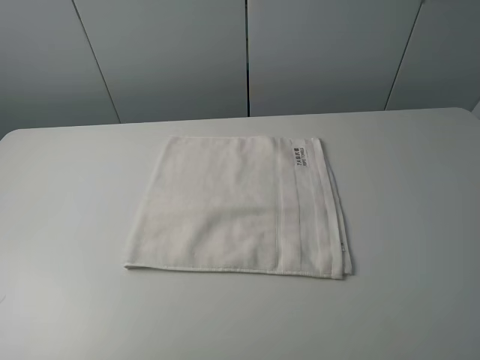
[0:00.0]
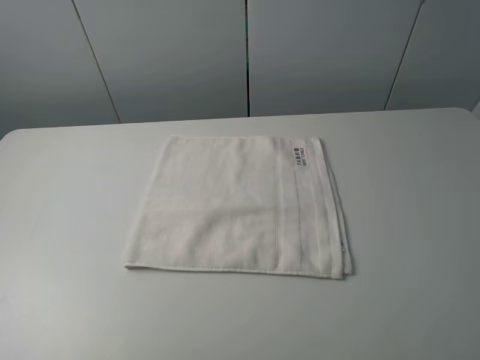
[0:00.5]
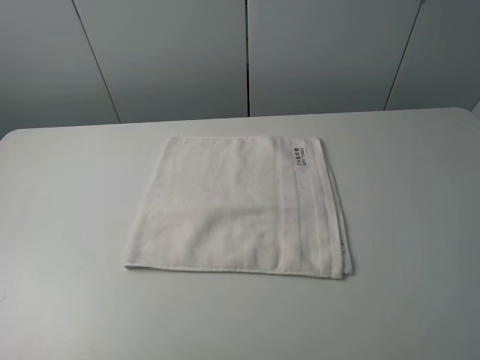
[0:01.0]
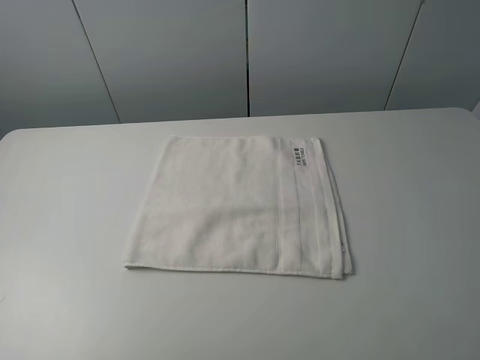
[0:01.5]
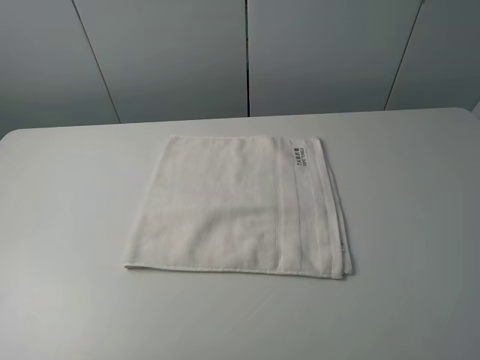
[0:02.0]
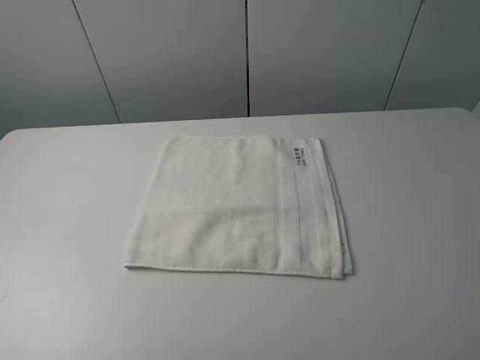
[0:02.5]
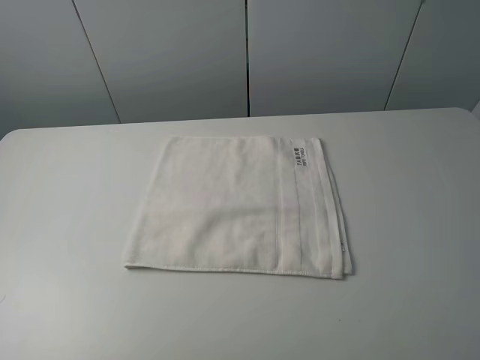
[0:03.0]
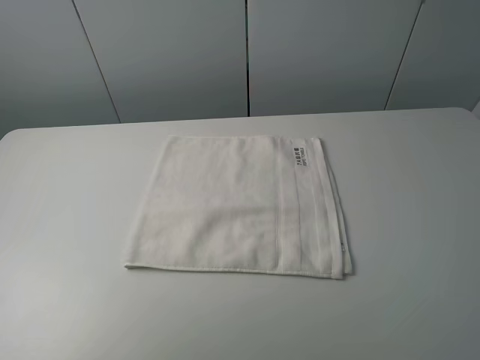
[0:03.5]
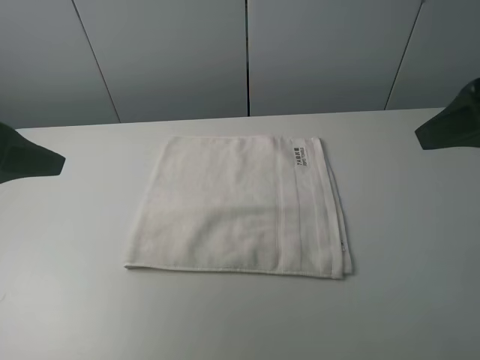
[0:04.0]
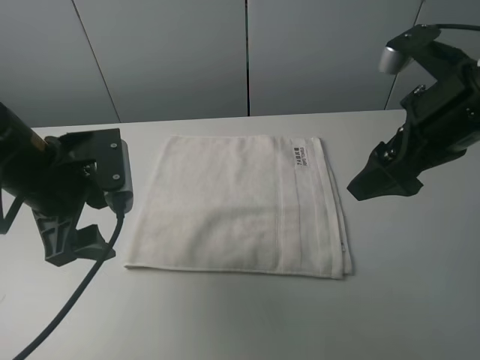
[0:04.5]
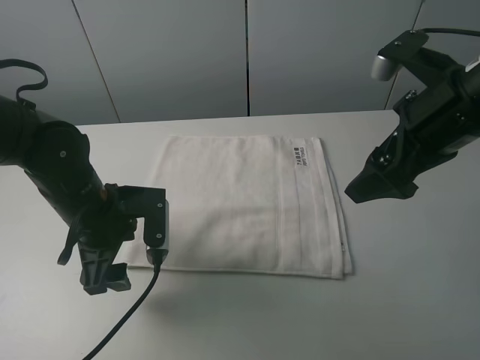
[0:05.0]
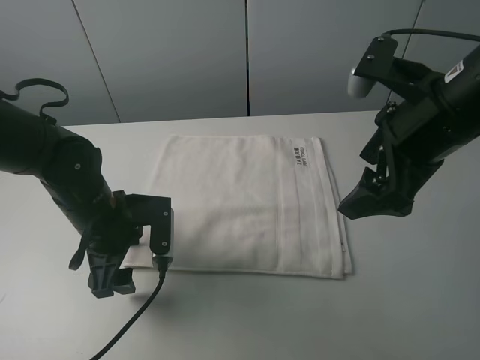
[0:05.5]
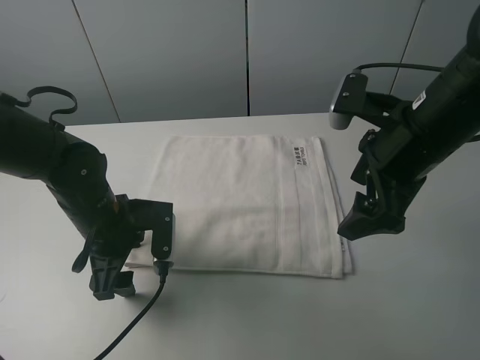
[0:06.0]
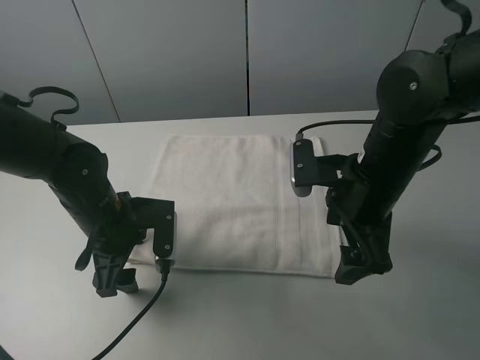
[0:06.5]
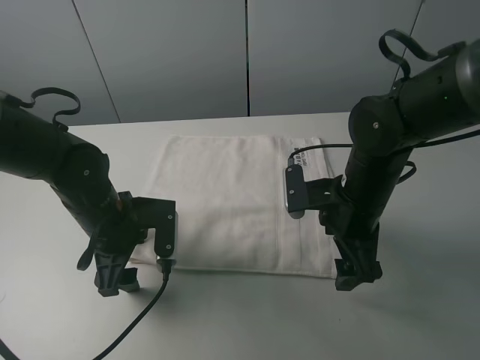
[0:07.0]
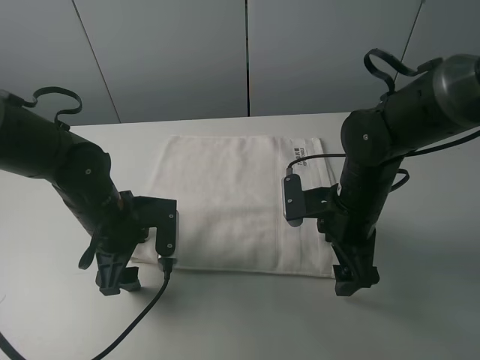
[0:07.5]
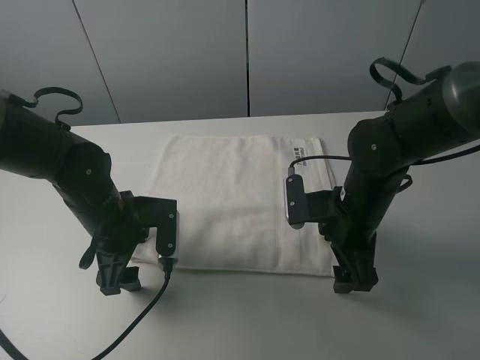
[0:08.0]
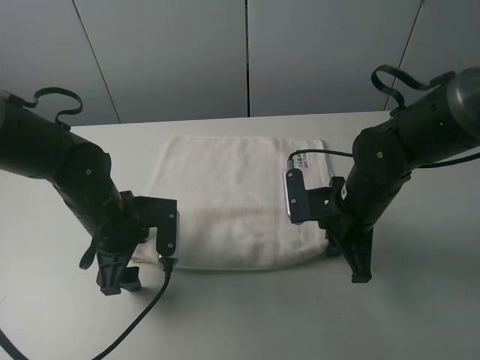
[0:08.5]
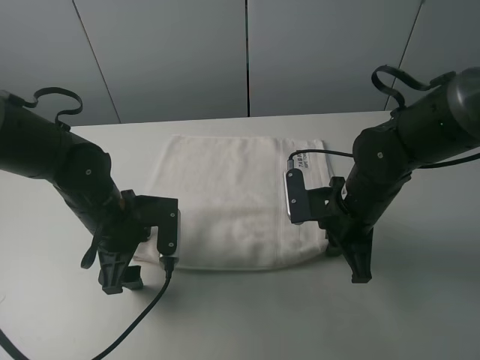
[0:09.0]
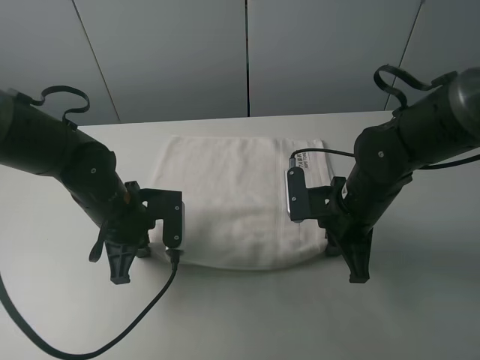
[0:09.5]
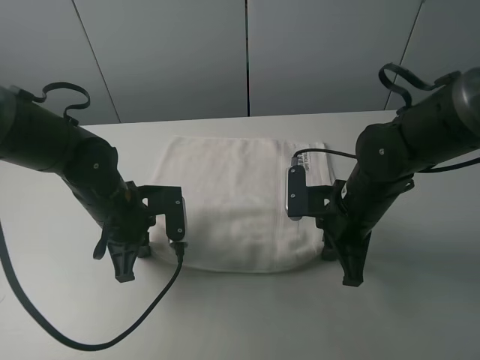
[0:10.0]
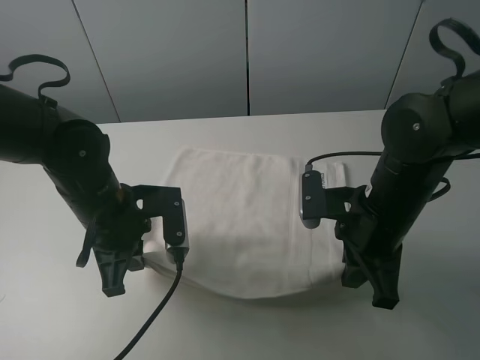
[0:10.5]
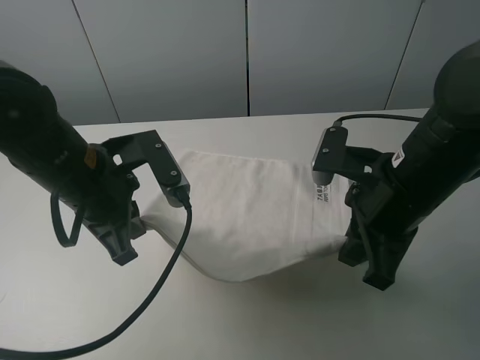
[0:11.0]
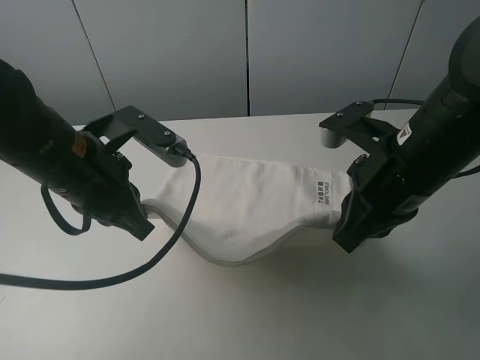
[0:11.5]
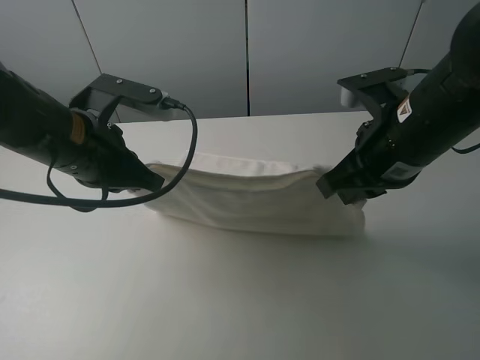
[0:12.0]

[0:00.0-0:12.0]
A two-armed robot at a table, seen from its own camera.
Task of the whole recording: fold the towels on the table.
Step, 0:00.0 to 0:08.0: Grasp the white towel with the right gripper.
Step, 0:08.5 to 0:09.5: Grasp the white towel with the left gripper.
0:00.0 to 0:02.0: Neither gripper changes place.
0:02.0 to 0:04.0: The two grippers go approximately 20 cm forward.
0:04.0 to 0:06.0: The right gripper is displaced downward, to the left and forward by about 15 cm. The left gripper heads downward and to the right, covering roughly 20 cm.
0:06.0 to 0:08.0: The right gripper travels downward by approximately 15 cm.
0:08.0 to 0:10.0: The right gripper closes. Meanwhile the left gripper closes its fingers.
0:10.0 to 0:12.0: Both grippers travel together upward, about 15 cm.

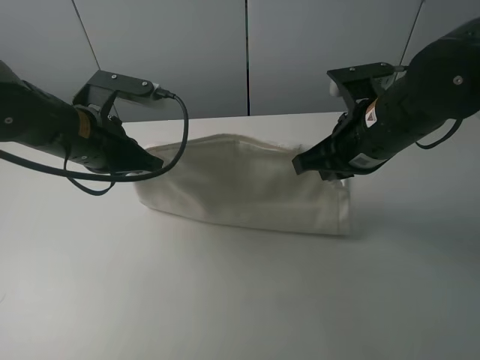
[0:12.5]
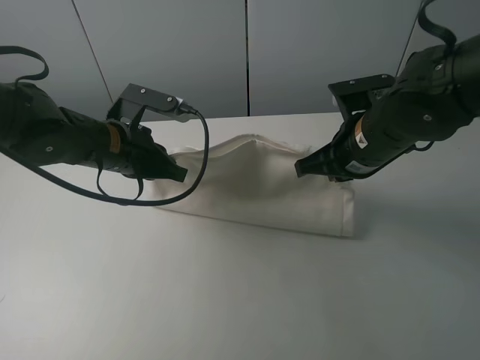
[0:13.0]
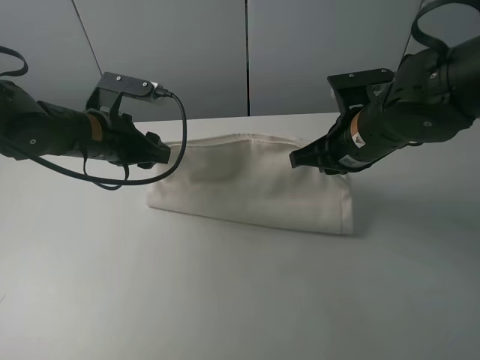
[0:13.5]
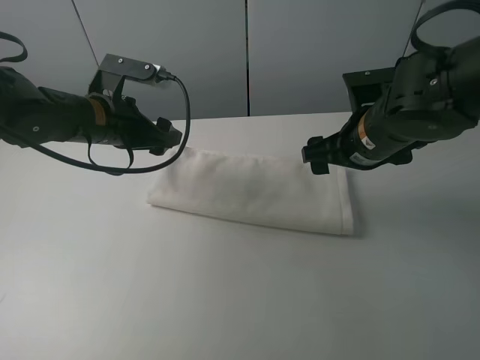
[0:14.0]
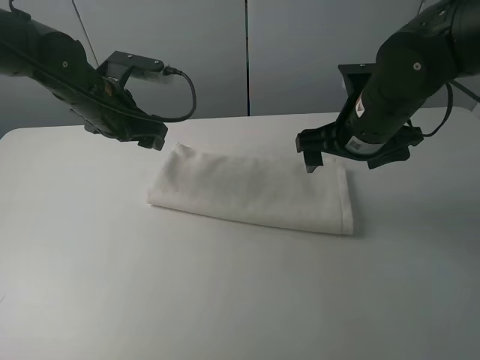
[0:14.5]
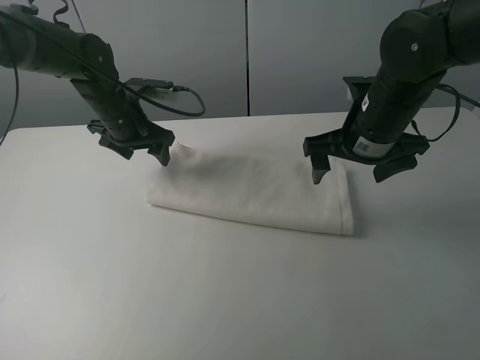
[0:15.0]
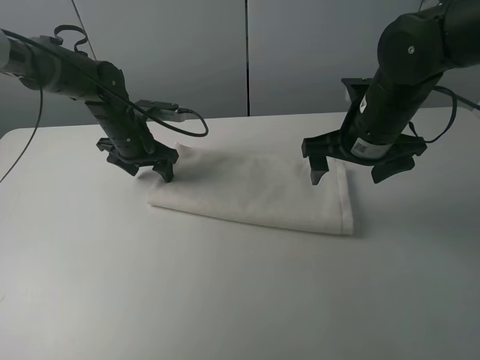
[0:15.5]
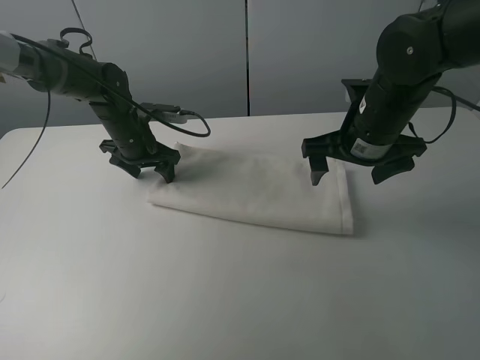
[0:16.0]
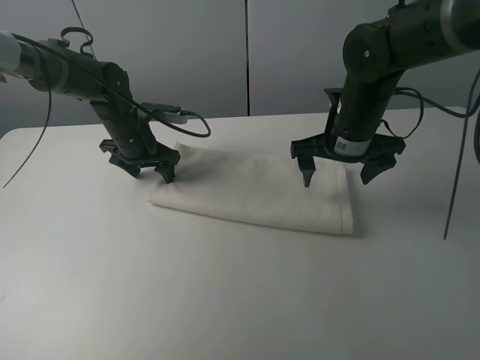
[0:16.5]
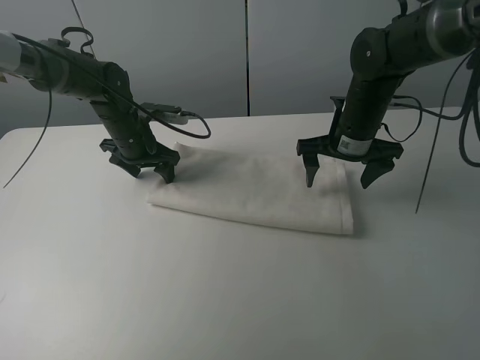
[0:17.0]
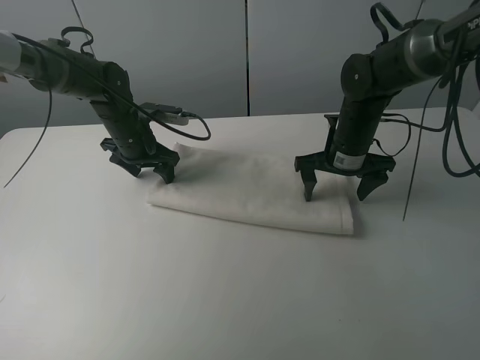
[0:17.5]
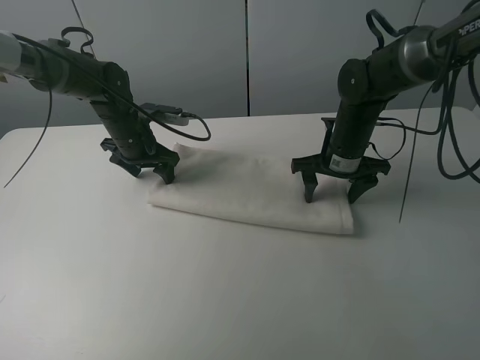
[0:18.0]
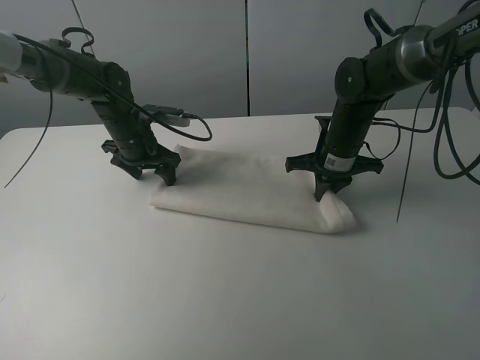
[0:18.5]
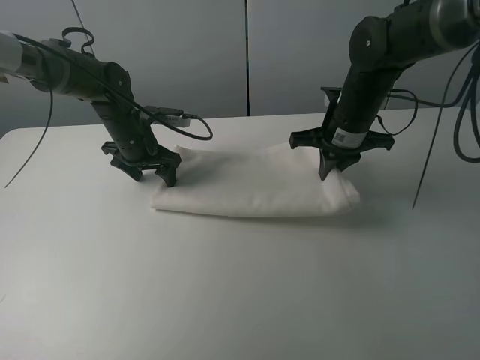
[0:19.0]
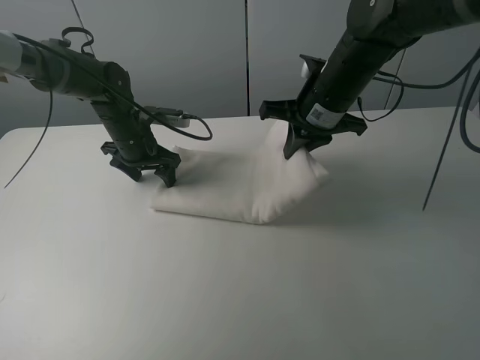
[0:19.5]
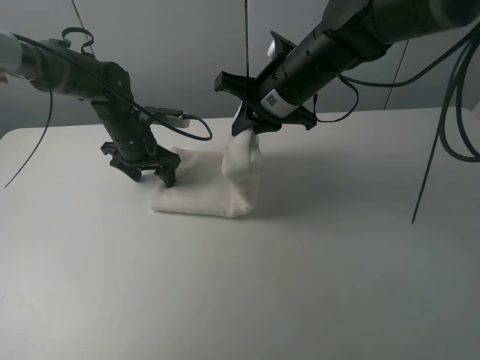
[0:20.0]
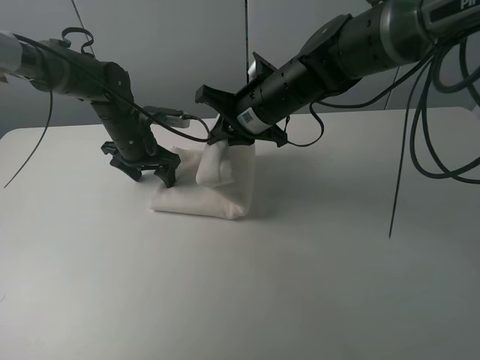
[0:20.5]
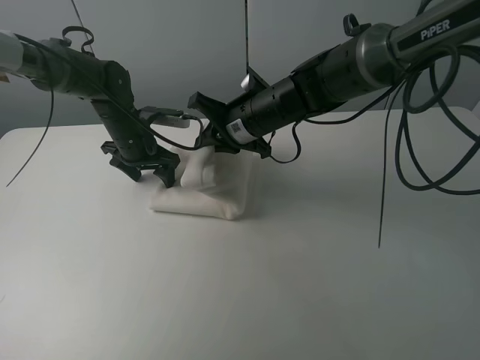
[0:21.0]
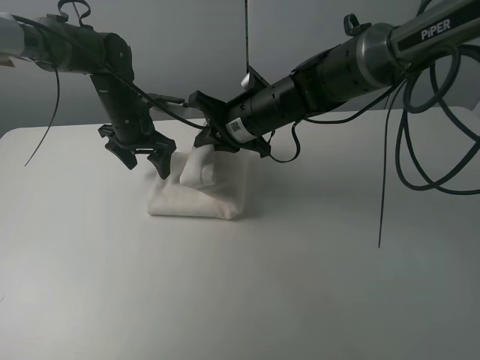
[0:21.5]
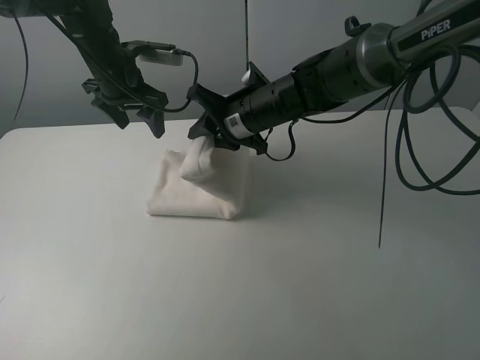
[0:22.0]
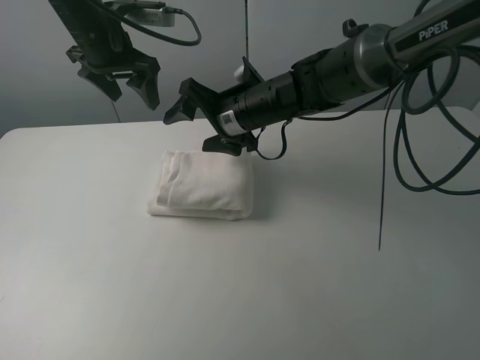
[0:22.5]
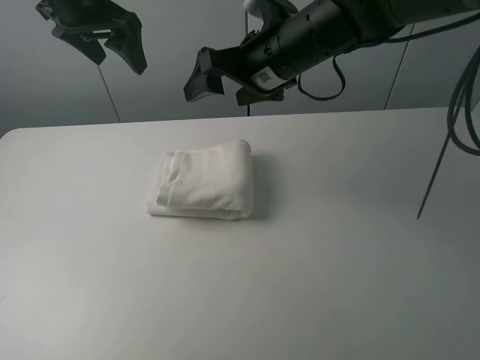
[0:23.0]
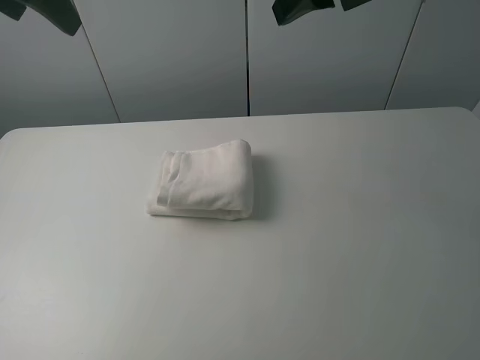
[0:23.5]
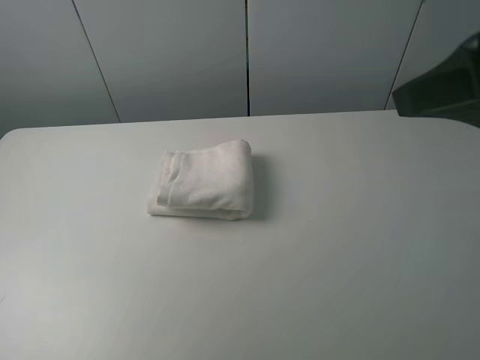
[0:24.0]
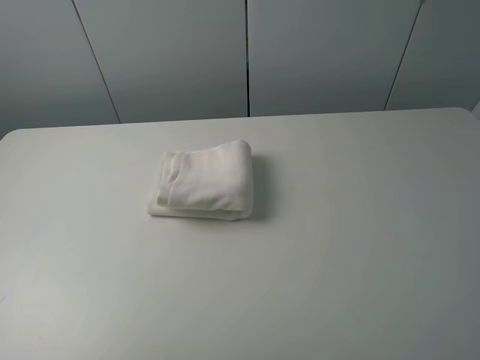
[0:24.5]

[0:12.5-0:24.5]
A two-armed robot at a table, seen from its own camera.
Task of the whole recording: fold the towels on the table.
Step, 0:14.0 to 0:15.5: Press on the white towel with the left gripper.
Step, 0:16.0 to 0:22.5: Fold the white towel from right to left with right gripper.
0:12.5 to 0:14.5: The right gripper opens its fingers. Meanwhile the left gripper is displaced forward by some 10 cm, and opens up.
0:14.5 to 0:16.5: The right gripper moves approximately 5 cm. Meanwhile the left gripper is displaced downward and forward by roughly 10 cm.
0:16.5 to 0:18.5: The right gripper travels downward by approximately 5 cm, and closes its fingers.
0:18.5 to 0:20.5: The right gripper heads to the left and upward, covering approximately 15 cm.
0:20.5 to 0:22.5: The left gripper heads upward, covering approximately 15 cm. The right gripper opens up.
0:22.5 to 0:24.5: The left gripper heads backward, covering roughly 40 cm; the right gripper heads backward, to the right and upward, covering some 50 cm.

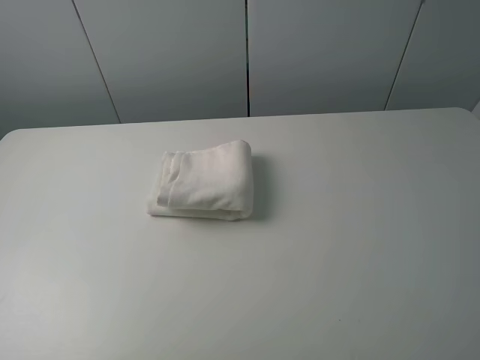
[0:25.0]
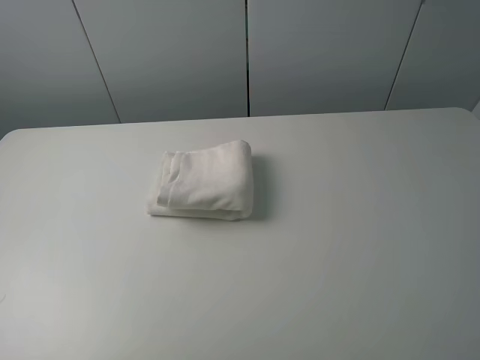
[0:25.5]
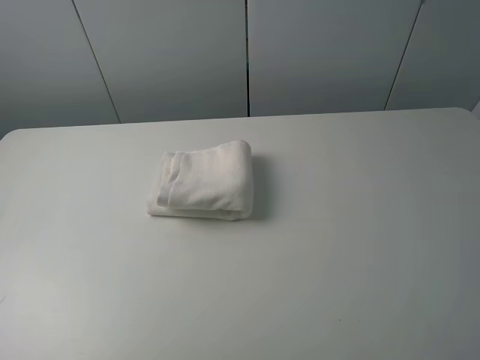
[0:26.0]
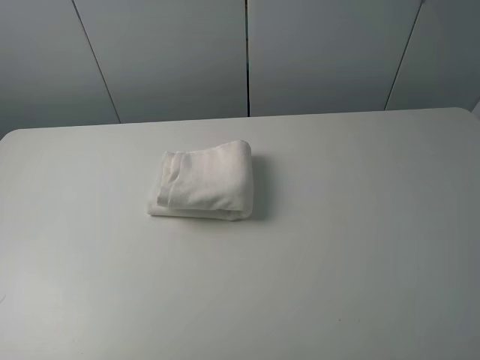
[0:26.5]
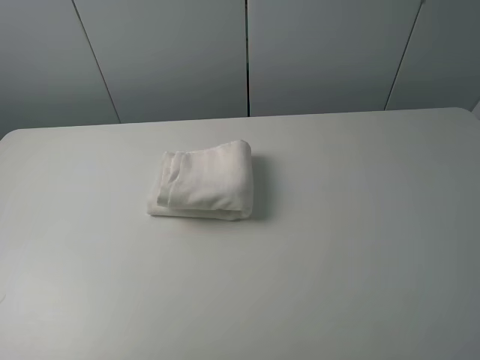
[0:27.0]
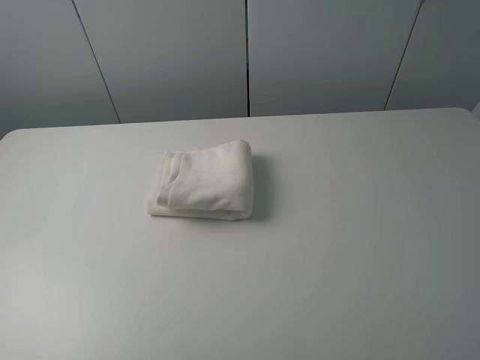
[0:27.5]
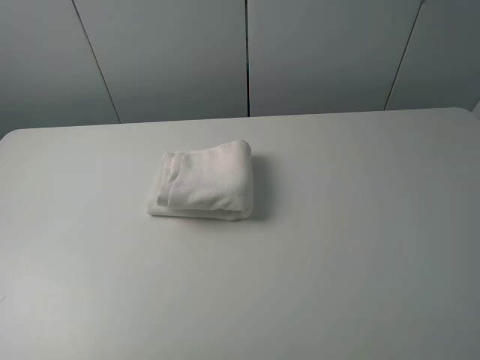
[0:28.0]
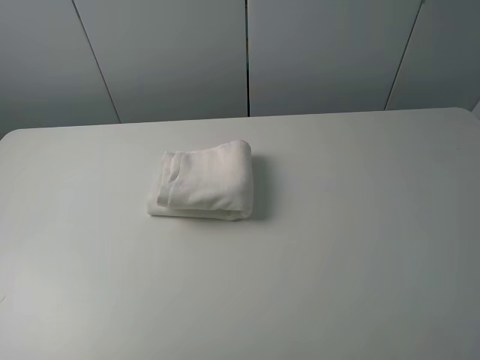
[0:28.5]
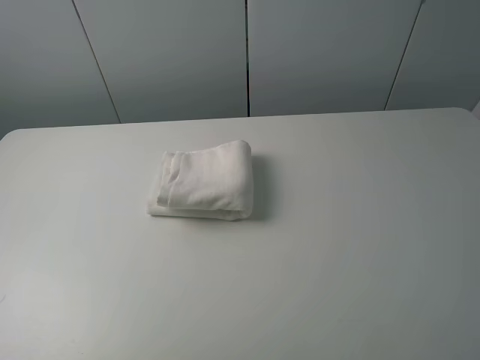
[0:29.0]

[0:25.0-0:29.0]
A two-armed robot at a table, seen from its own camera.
Task of the whole recording: fold the towels on the table.
0:27.0 to 0:29.0: Neither gripper changes place.
